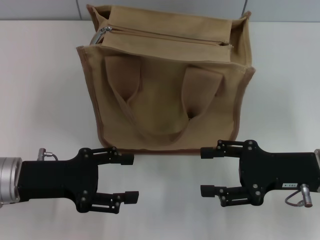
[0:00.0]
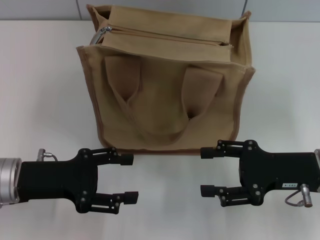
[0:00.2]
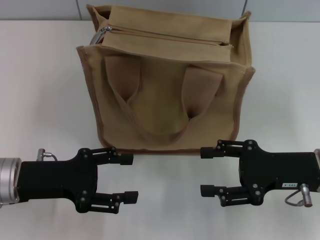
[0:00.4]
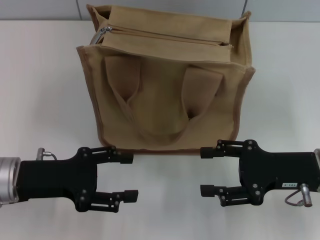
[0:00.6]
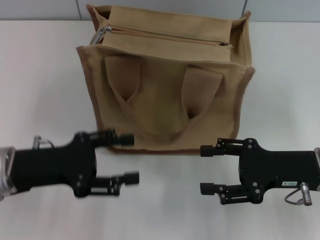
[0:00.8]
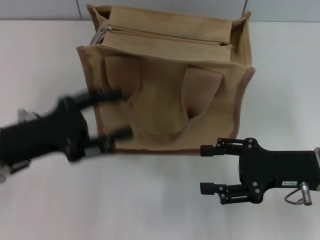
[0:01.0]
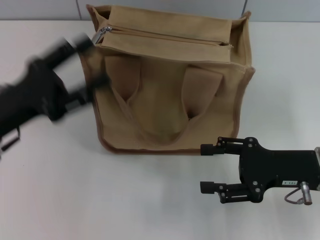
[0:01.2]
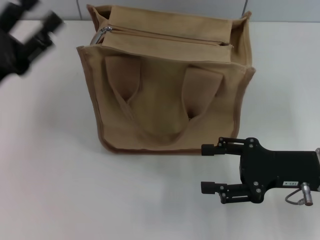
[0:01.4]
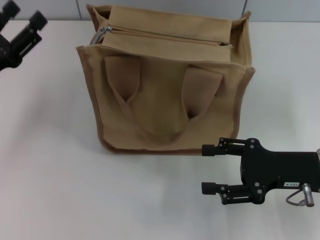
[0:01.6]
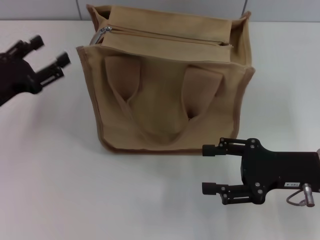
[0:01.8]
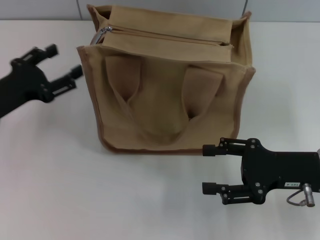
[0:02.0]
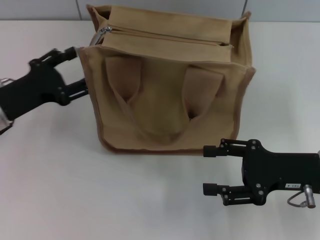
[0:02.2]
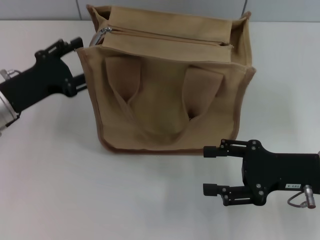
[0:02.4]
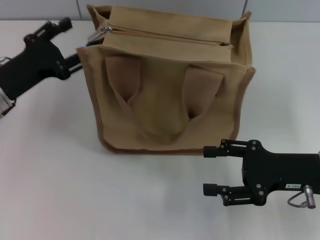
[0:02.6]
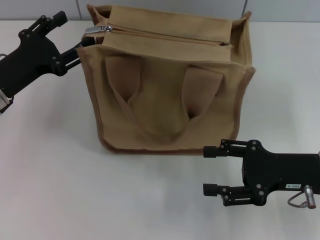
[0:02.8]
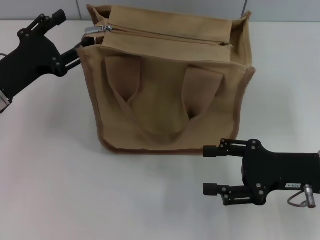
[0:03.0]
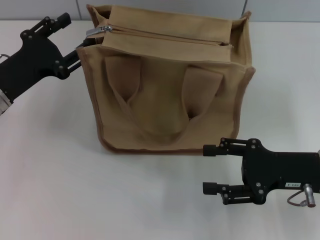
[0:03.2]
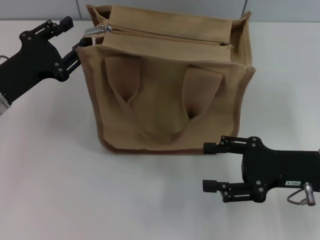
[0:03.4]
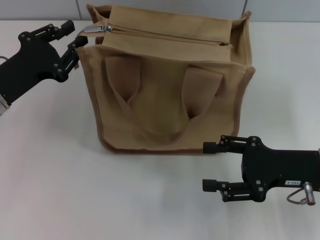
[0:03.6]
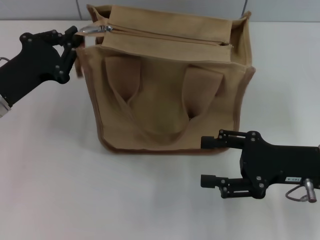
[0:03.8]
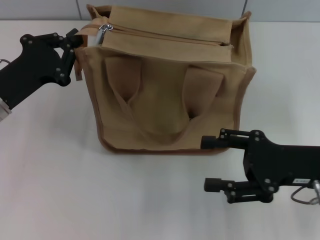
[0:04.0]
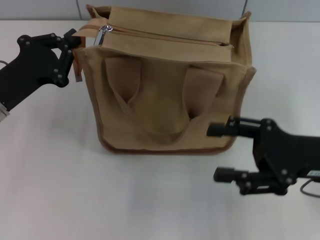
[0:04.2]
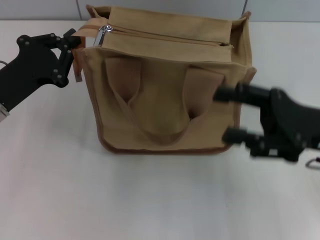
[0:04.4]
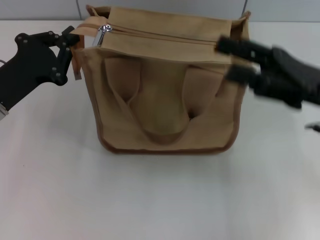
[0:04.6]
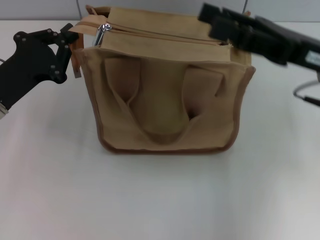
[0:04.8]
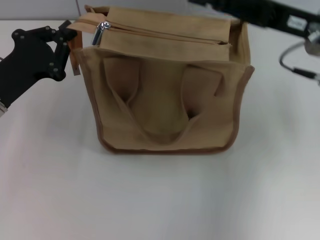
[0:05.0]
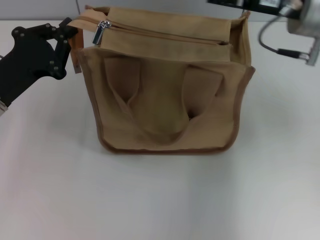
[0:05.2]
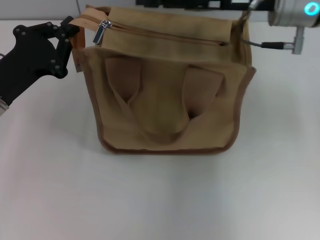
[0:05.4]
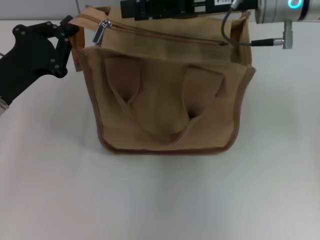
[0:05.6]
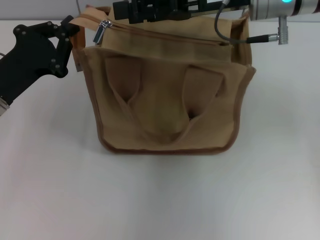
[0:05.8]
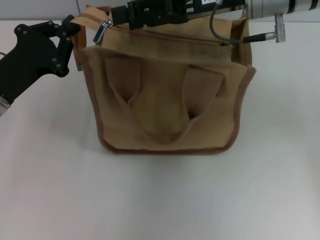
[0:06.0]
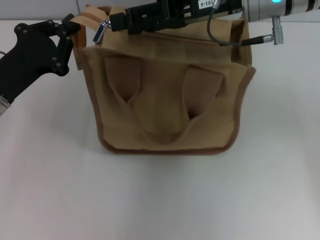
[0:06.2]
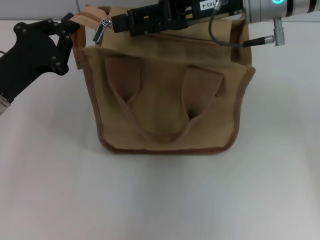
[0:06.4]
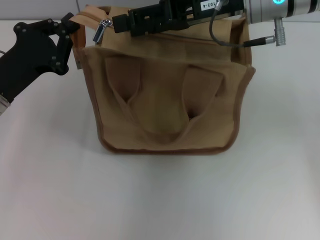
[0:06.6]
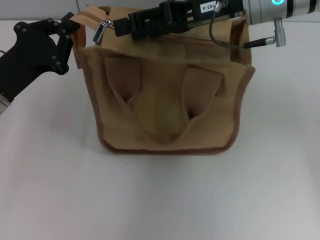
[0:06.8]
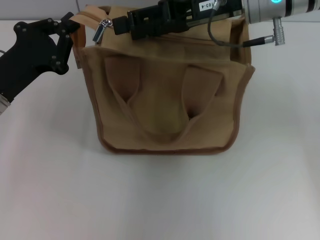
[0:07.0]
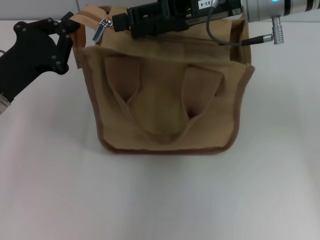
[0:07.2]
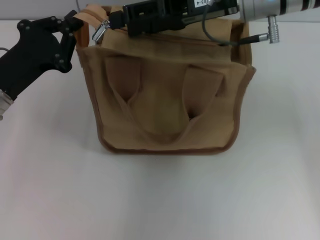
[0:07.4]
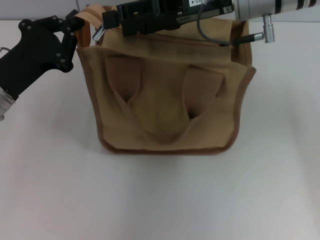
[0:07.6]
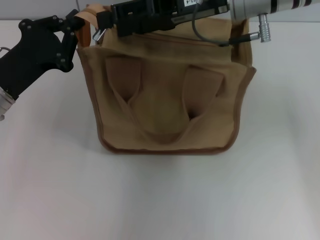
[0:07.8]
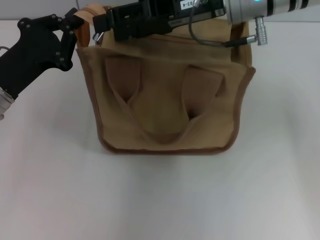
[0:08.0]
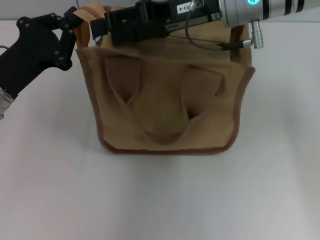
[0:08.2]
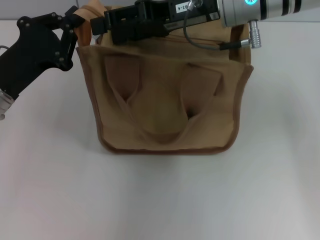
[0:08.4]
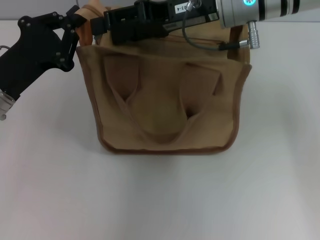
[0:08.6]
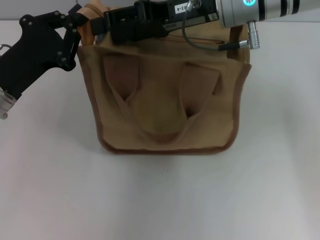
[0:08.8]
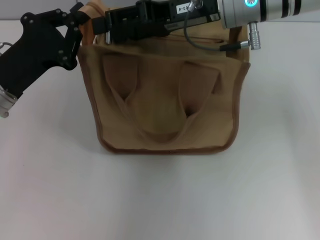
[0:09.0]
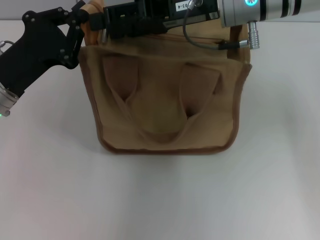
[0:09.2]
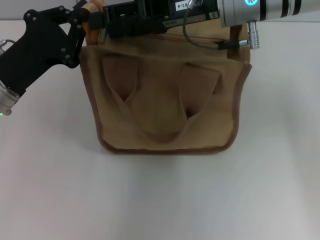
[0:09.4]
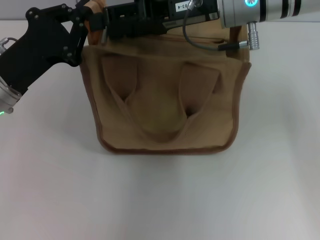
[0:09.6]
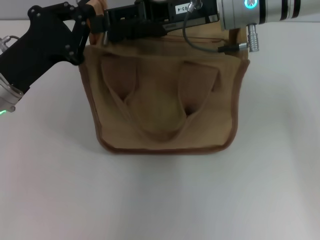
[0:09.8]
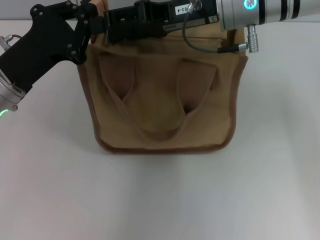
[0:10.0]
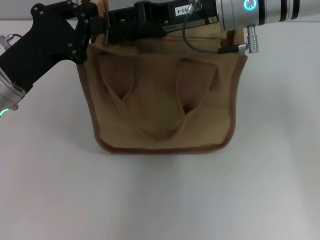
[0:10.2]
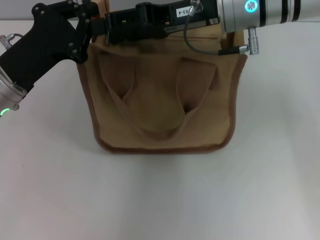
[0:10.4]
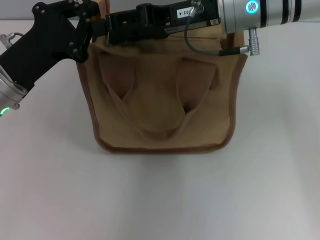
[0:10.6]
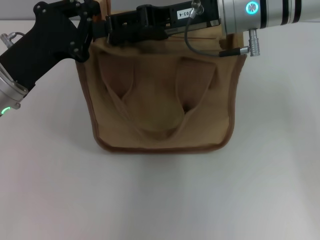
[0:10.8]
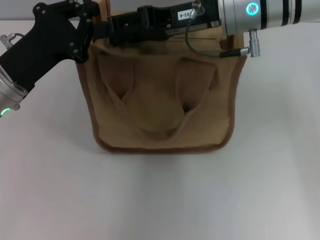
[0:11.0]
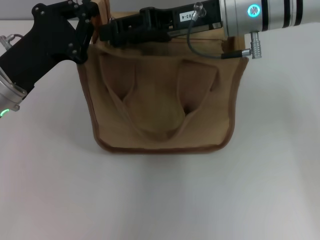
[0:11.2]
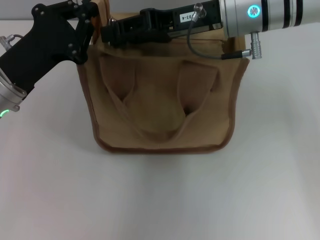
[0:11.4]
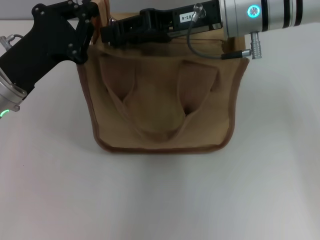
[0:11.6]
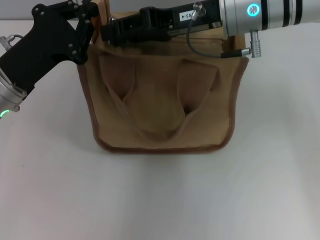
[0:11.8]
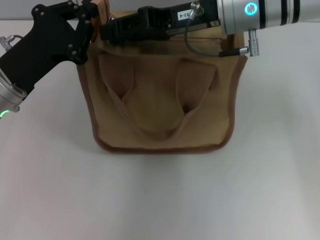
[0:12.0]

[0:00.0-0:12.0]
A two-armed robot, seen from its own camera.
0:00.0 to 0:01.6: The left gripper travels to the left by some 5 cm.
0:03.0 to 0:04.4: The right gripper moves upward, some 5 cm. The left gripper closes up.
0:04.4 to 0:06.0: The right gripper is displaced forward, to the left and upward by some 20 cm.
0:06.0 to 0:10.4: The grippers stay close to where they were, moving slightly.
0:10.4 to 0:12.0: The right gripper closes.

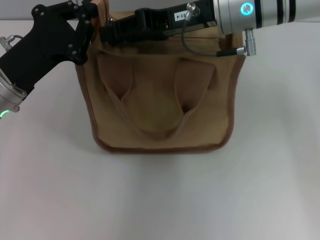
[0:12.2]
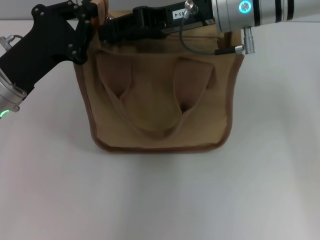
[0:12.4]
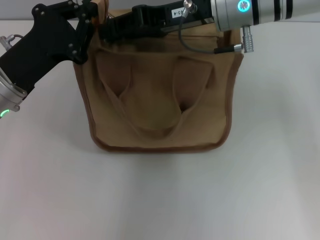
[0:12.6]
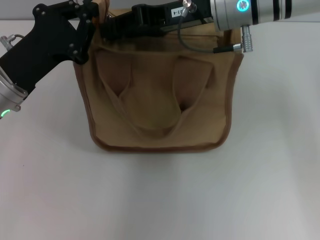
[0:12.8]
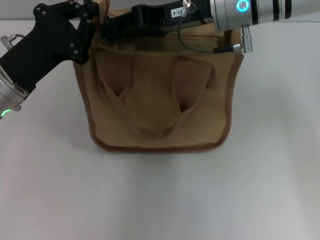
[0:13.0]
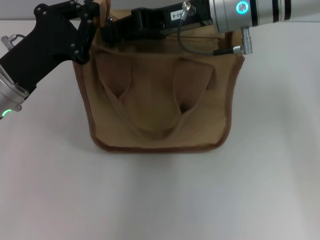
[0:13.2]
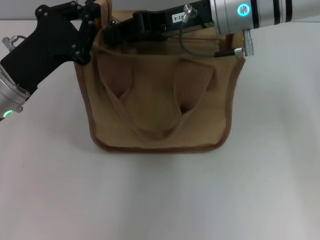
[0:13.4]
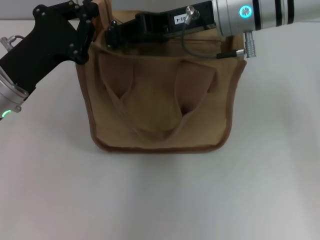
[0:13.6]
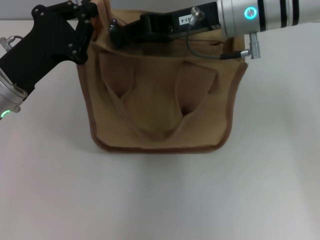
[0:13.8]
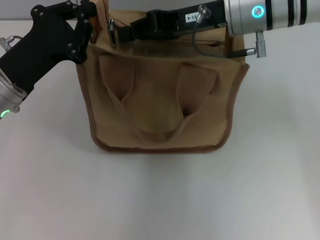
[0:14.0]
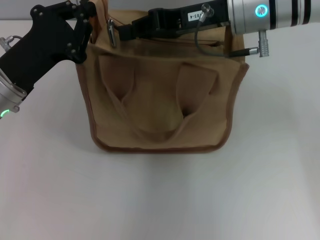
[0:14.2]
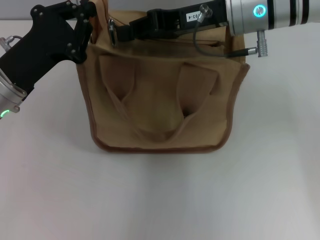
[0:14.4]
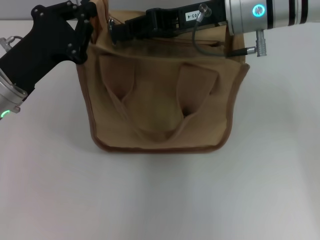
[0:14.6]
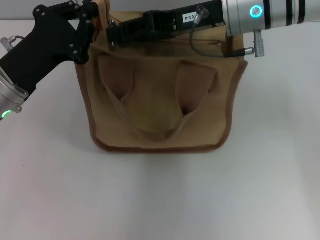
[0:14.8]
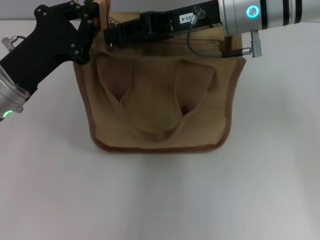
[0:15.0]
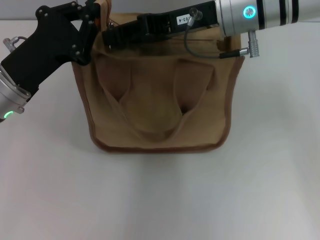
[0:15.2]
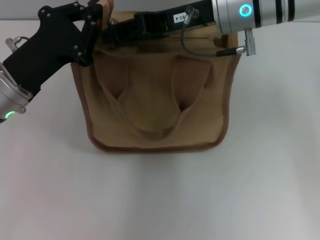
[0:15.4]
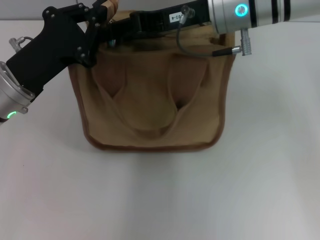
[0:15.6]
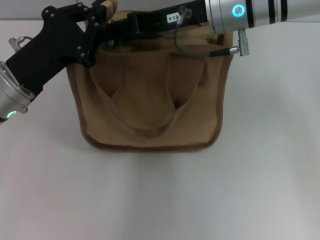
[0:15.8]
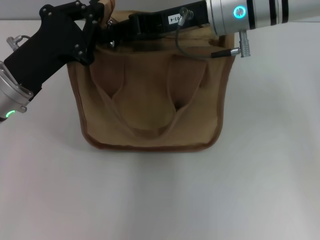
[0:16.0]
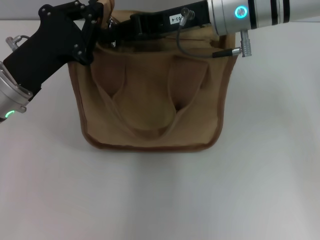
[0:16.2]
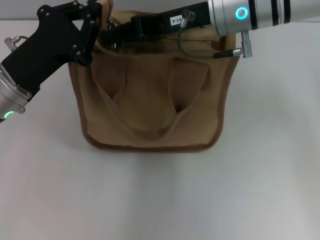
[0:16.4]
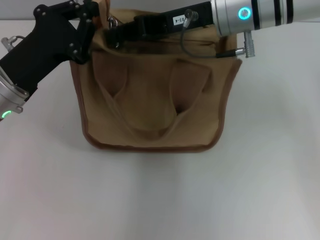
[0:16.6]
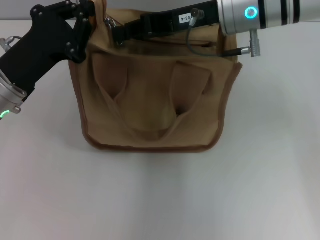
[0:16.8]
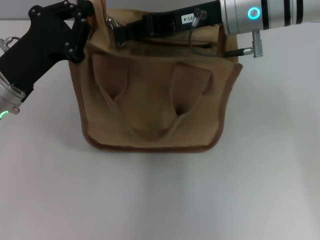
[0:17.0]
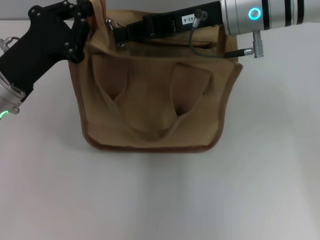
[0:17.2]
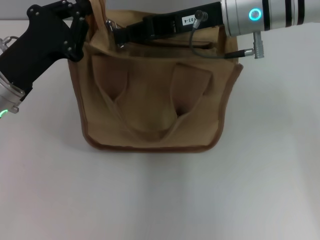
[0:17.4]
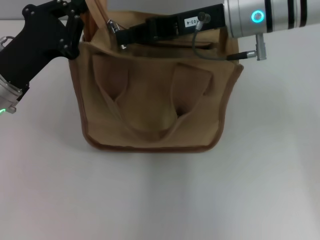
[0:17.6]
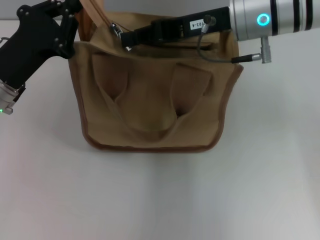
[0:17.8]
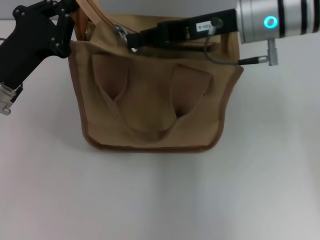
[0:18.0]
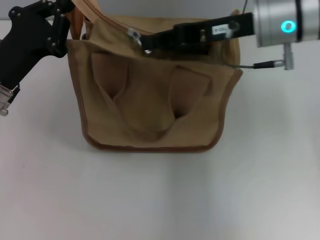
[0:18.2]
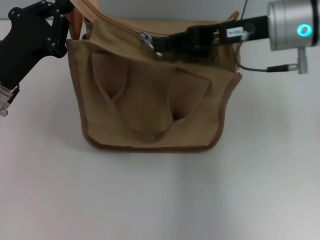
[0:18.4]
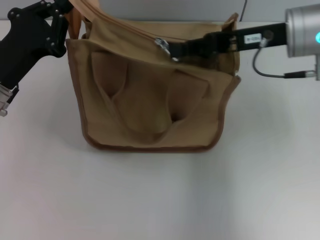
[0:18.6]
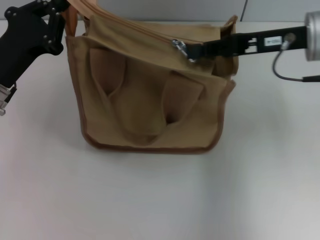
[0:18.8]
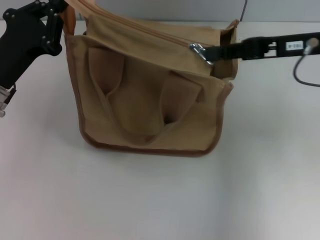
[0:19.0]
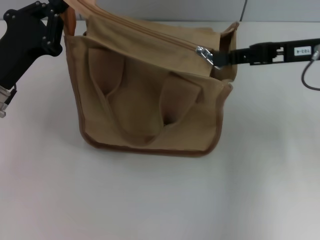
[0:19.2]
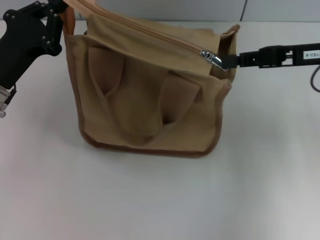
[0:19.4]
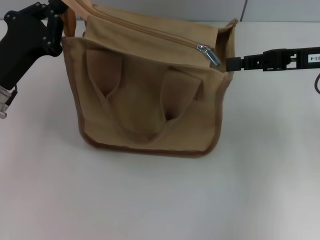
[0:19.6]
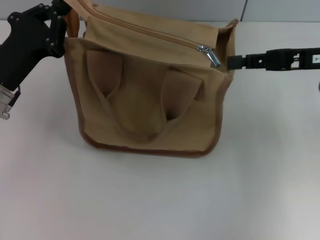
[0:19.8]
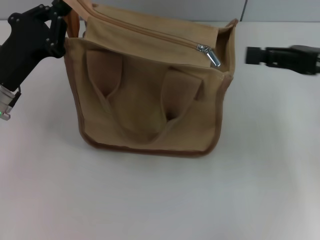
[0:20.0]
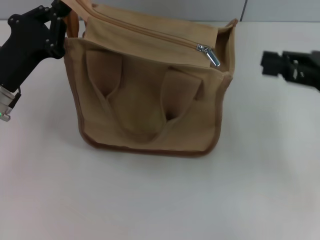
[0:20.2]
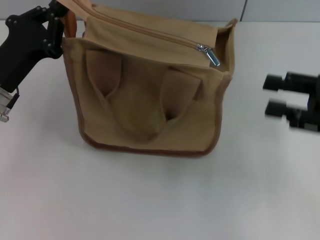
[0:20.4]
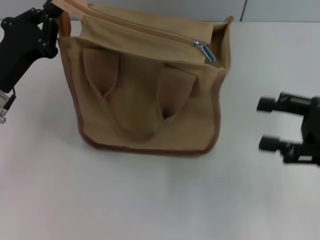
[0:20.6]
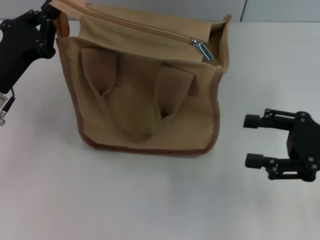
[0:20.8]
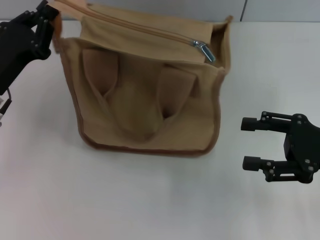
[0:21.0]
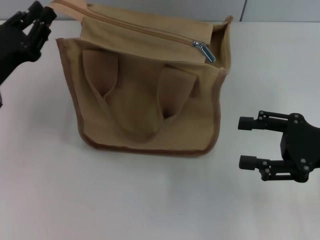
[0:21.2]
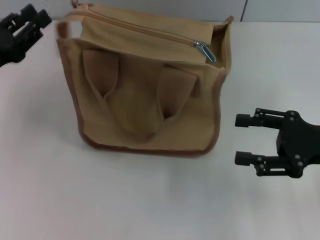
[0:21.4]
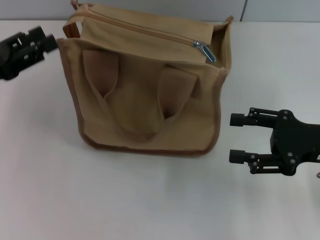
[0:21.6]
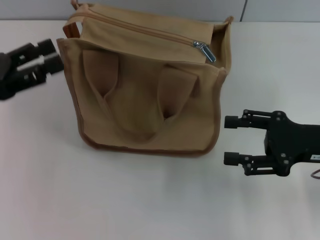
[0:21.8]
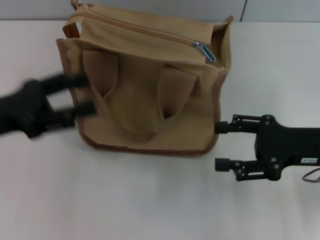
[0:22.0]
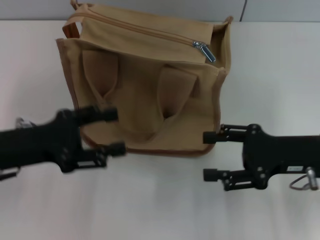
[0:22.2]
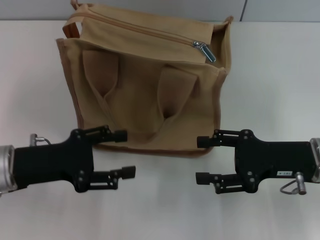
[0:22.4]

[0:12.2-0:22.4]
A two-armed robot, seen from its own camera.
Step, 0:12.2 to 0:19.4: Pull up the zipper with your right hand.
Step, 0:19.6 to 0:21.4: Grab the zipper with your left hand.
0:12.2 to 0:13.6: The right gripper closes up.
0:13.6 to 0:15.2: The grippers make only small movements.
0:15.2 to 0:16.6: Both grippers stay put.
0:16.6 to 0:18.0: The grippers move only a little.
0:18.0 to 0:19.4: The right gripper moves to the right, about 15 cm.
0:19.4 to 0:21.0: The right gripper heads backward and downward, covering some 10 cm, and opens its fingers.
0:21.0 to 0:22.4: The right gripper shifts approximately 5 cm to the left, while the left gripper heads backward, covering about 5 cm, and opens up.
